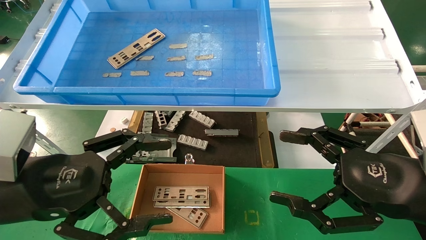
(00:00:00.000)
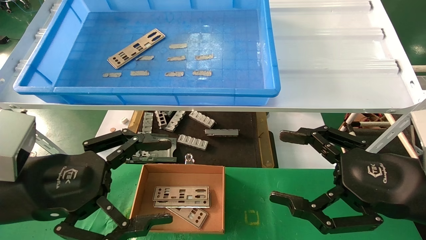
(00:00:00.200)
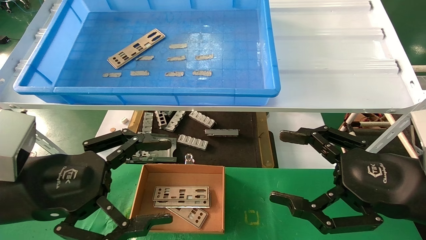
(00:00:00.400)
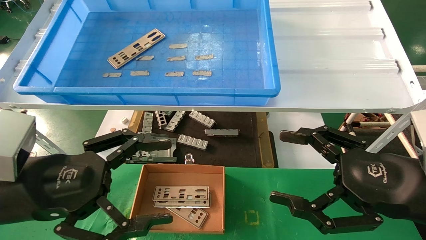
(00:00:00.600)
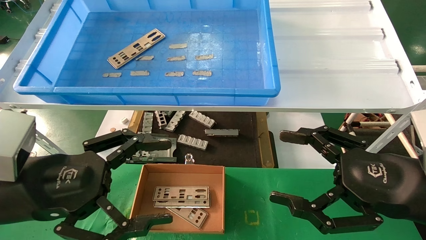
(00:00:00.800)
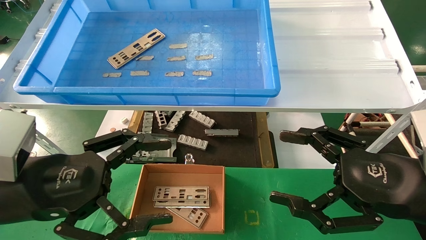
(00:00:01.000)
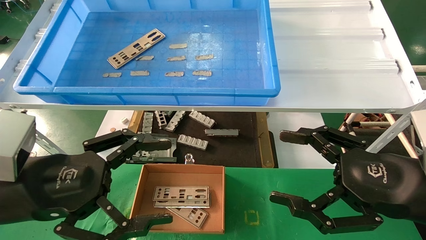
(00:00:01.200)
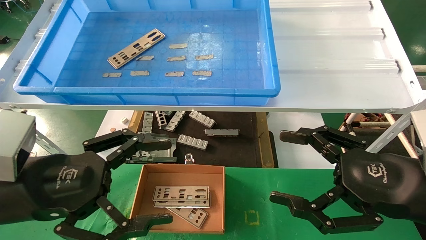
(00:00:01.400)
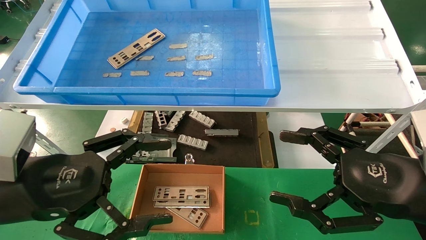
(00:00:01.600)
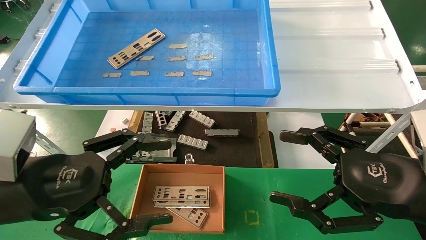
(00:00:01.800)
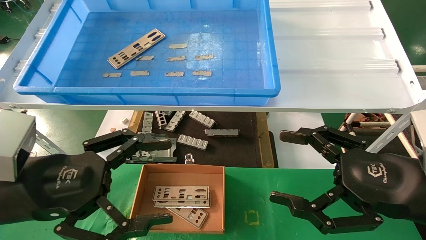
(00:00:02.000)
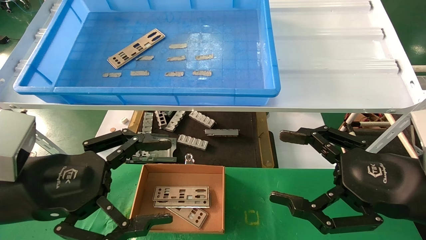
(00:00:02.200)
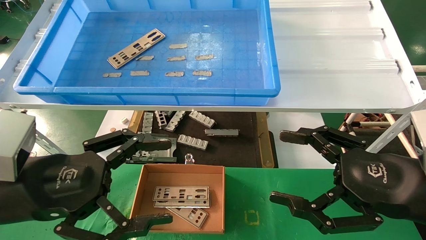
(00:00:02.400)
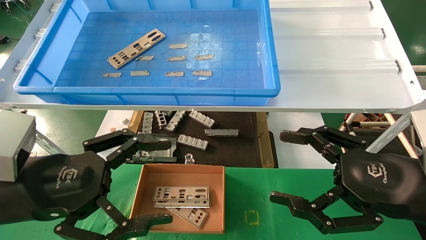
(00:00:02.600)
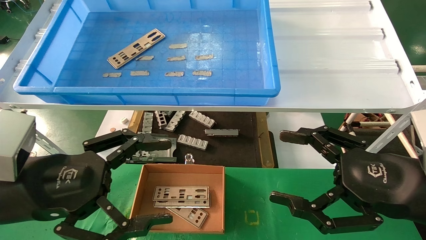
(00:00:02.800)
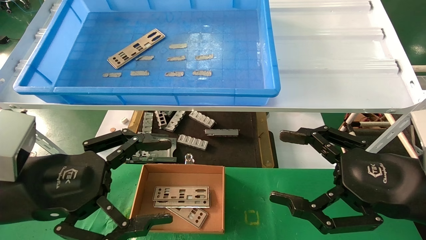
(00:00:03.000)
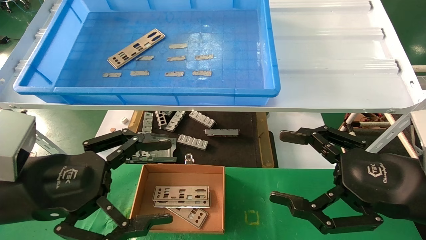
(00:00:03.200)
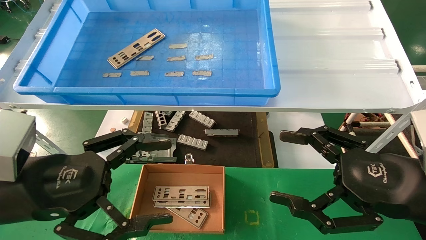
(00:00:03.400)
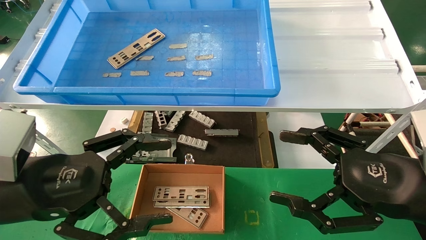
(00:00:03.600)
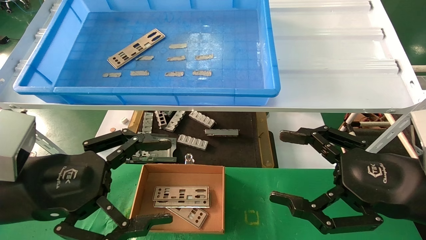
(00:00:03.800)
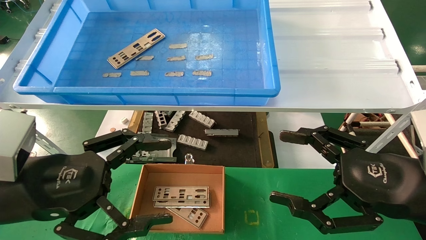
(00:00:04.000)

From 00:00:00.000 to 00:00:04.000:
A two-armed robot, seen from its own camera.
Task of the whole recording: pick up the parts on the tray and put them in the cardboard box.
From 00:00:00.000 to 00:00:04.000: Both grippers stay about where they are.
